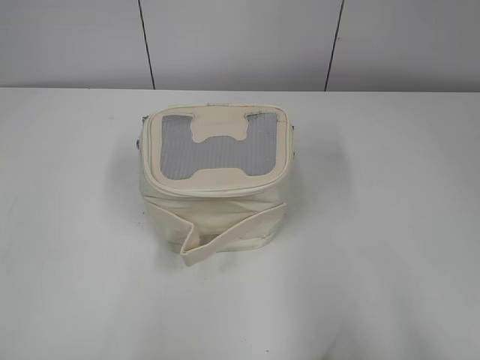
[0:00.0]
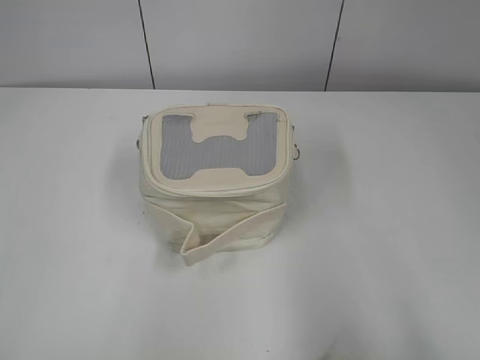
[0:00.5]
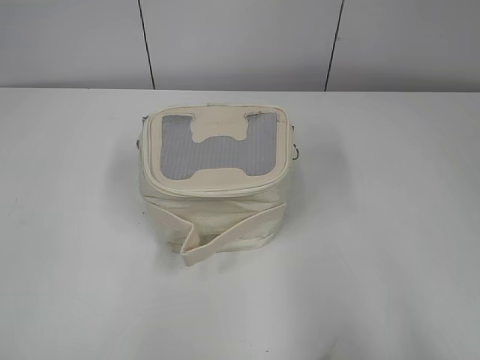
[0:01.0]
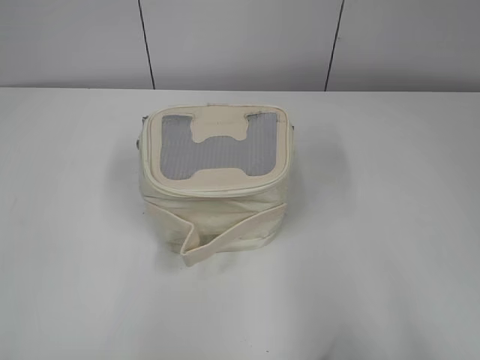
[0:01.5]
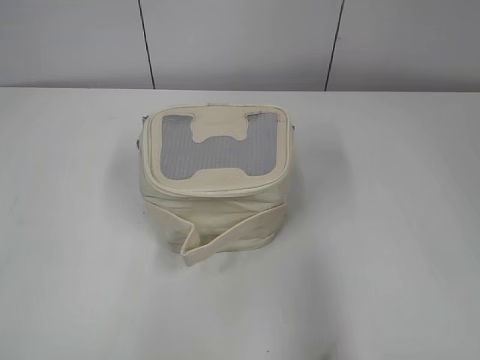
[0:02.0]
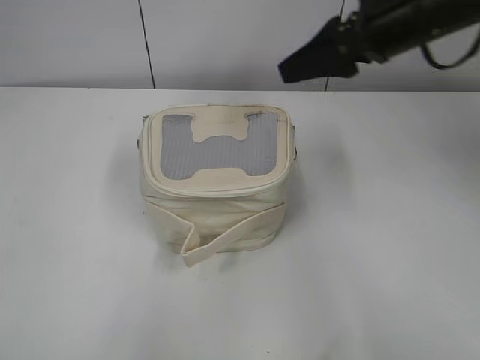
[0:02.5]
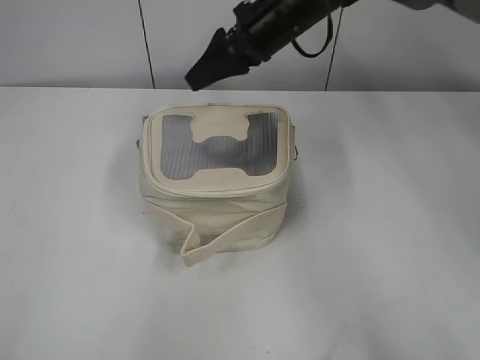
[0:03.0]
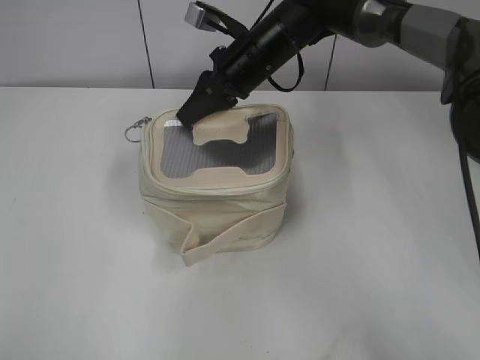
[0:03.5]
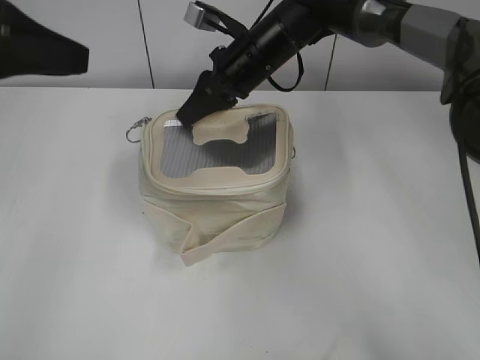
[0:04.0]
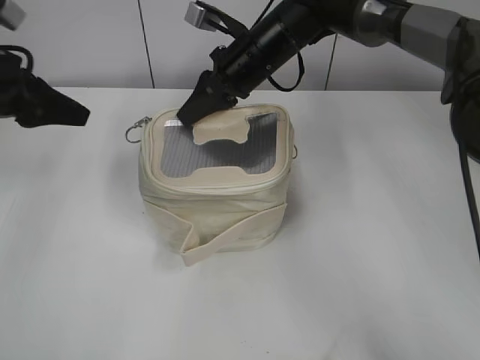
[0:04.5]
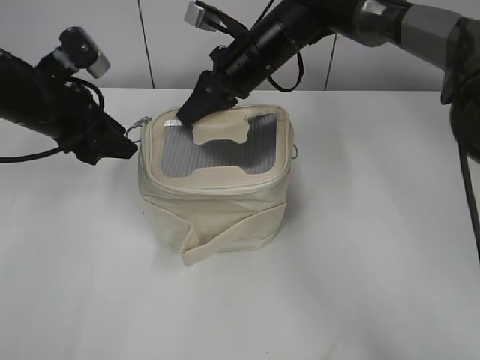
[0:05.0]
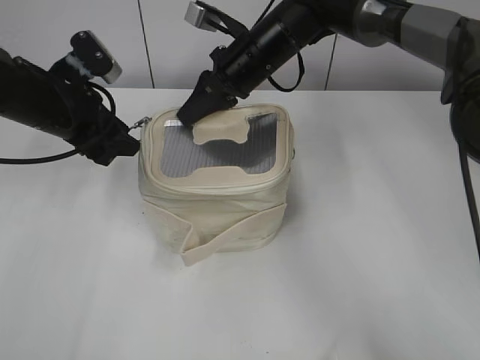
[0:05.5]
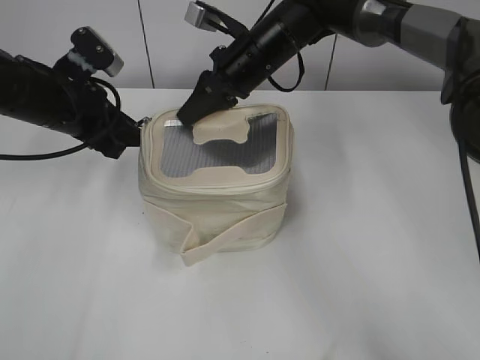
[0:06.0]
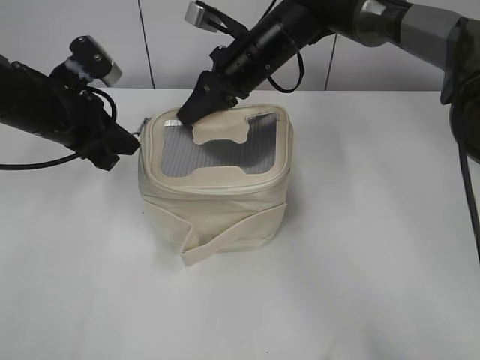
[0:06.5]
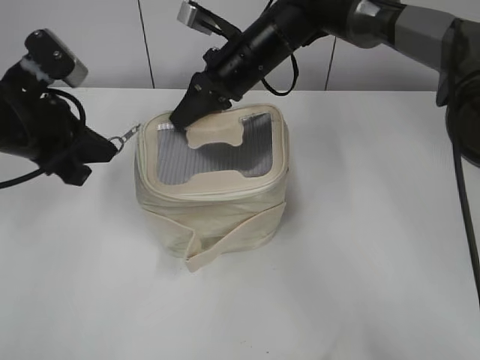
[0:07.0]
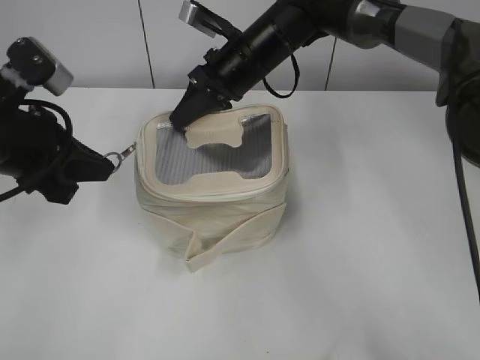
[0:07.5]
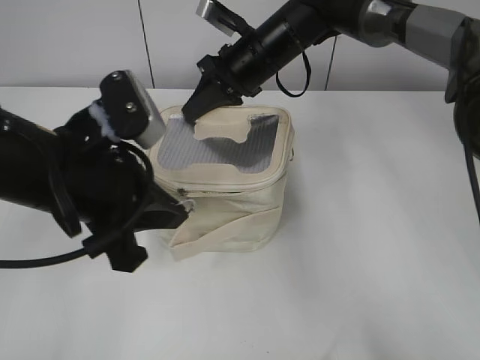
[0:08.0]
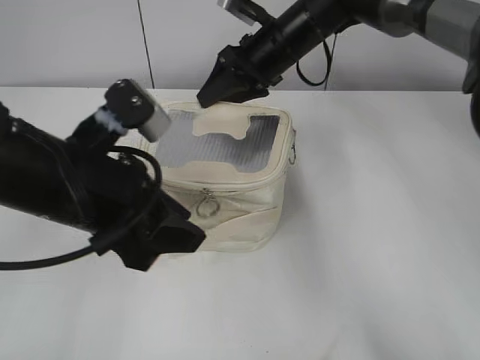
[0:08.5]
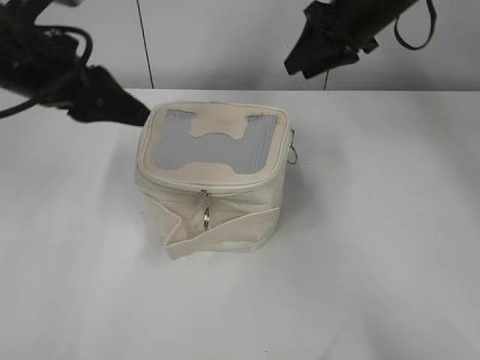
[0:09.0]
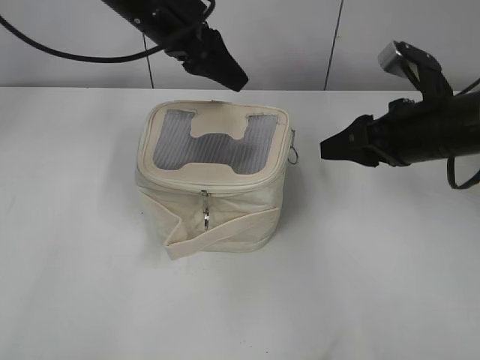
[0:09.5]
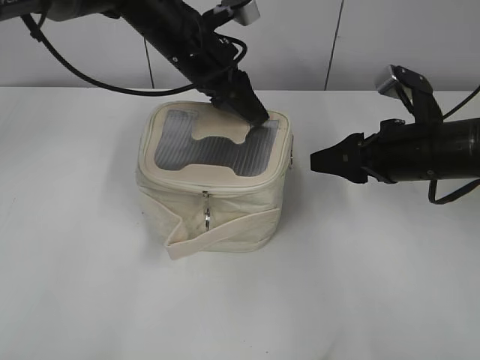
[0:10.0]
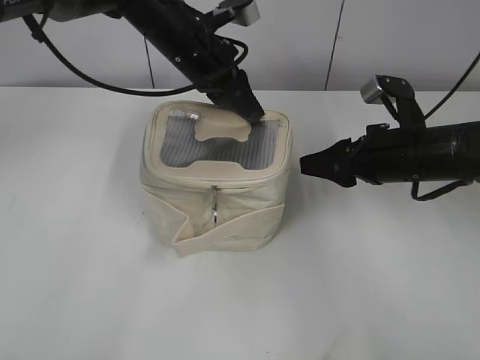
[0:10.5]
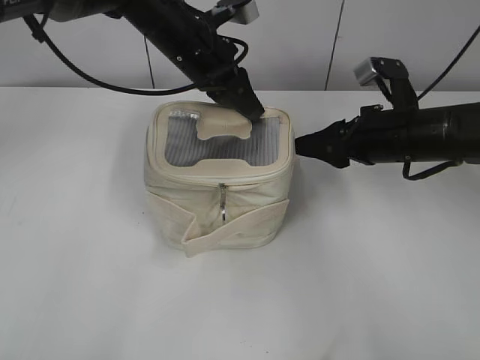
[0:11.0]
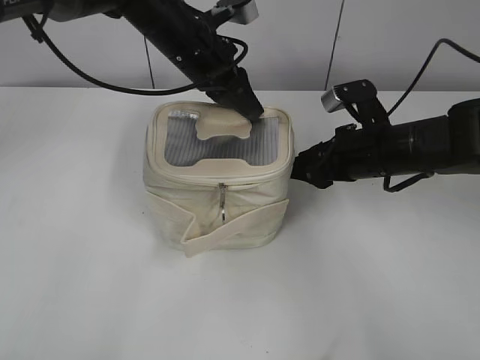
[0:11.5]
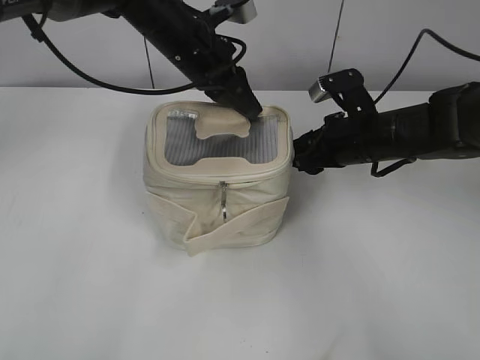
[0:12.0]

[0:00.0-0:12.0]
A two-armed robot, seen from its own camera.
Step, 0:00.0 to 0:08.0: Zip up the bag with your left hand.
0:02.0 to 0:04.0: The left gripper moves forward, about 25 cm. Meanwhile the right gripper goes approximately 40 cm forward and to the left, and closes.
0:04.0 to 0:06.0: The left gripper shifts roughly 20 cm downward and forward.
0:06.0 to 0:08.0: The left gripper goes approximately 15 cm backward and to the right, and closes.
0:08.0 to 0:10.0: The right gripper heads to the right and backward, covering roughly 25 cm, and opens up; the left gripper goes about 20 cm forward, and opens up.
0:10.0 to 0:12.0: The left gripper closes; the right gripper is displaced forward by about 5 cm.

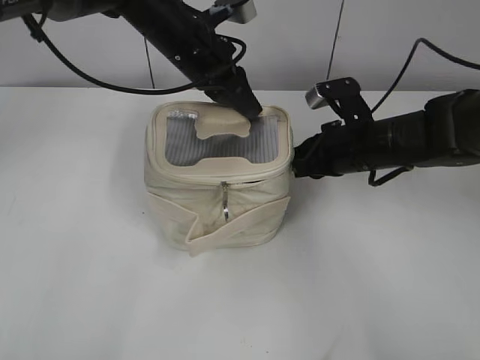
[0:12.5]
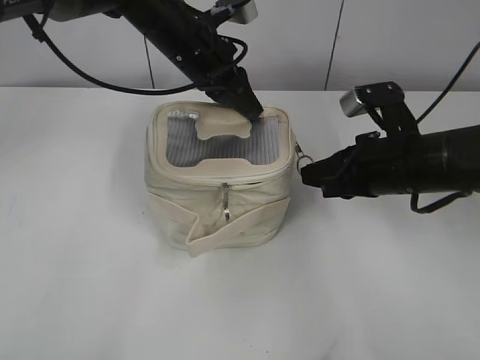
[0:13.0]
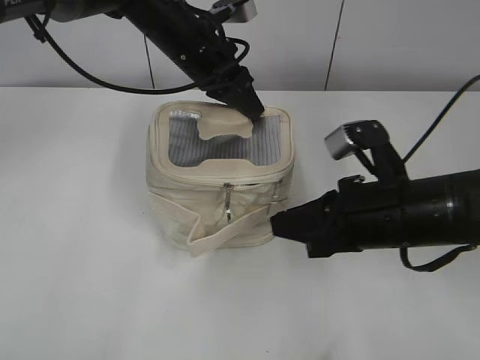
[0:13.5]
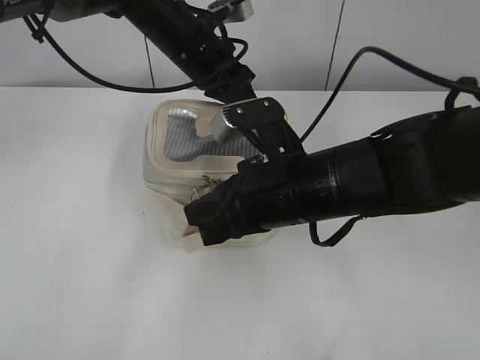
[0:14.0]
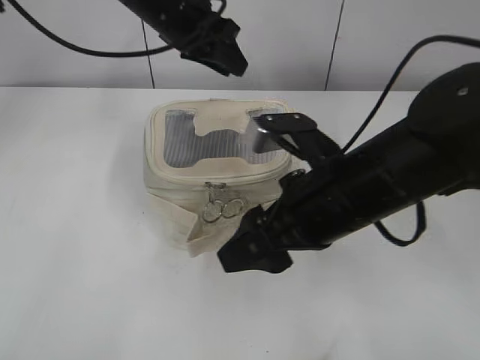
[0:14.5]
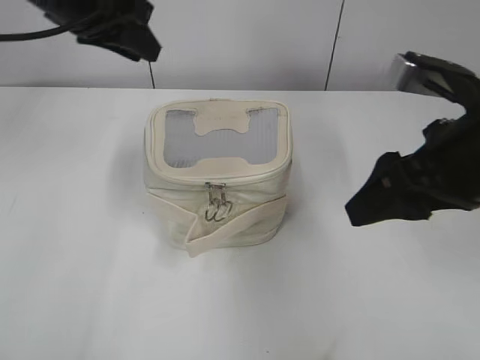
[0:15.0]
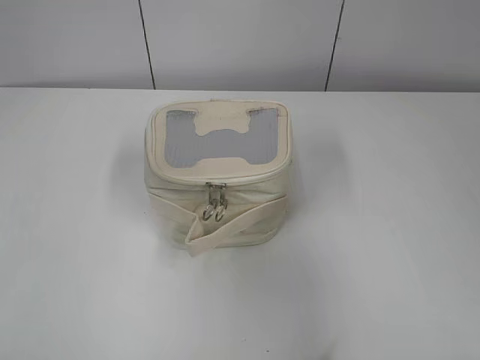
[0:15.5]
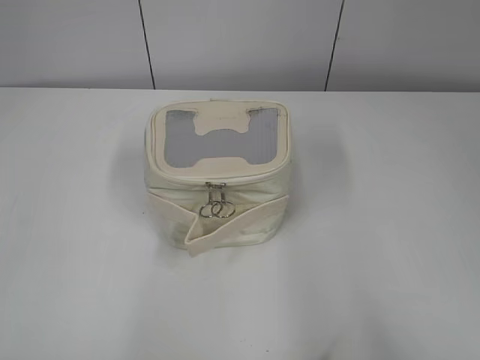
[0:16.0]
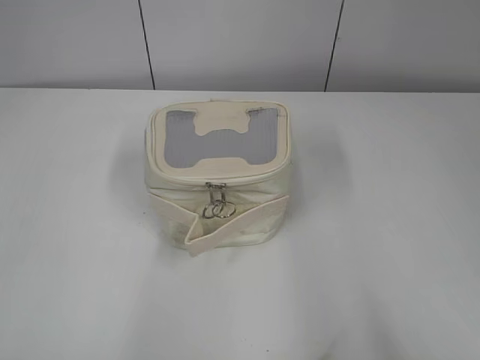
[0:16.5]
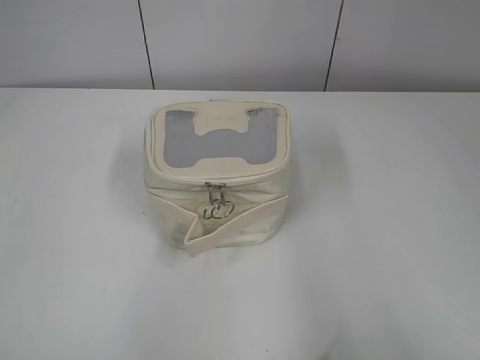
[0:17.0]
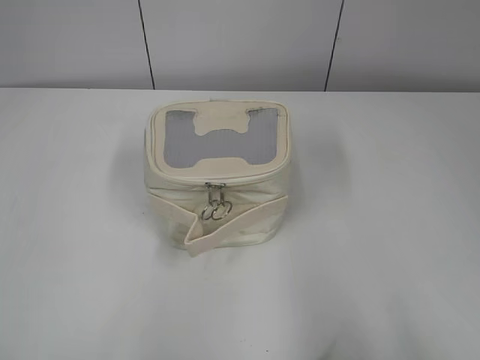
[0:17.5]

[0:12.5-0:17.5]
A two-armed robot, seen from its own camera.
0:12.5 to 0:15.0: The left gripper goes approximately 15 cm to the left, upward and backward, and opens up, while the right gripper goes about 20 cm upward and backward, and opens up.
0:15.0 to 0:17.5: The right gripper shifts about 25 cm backward and to the right. Meanwhile the left gripper travels backward and to the left by approximately 40 cm.

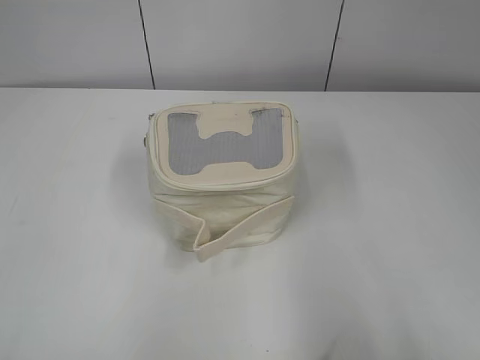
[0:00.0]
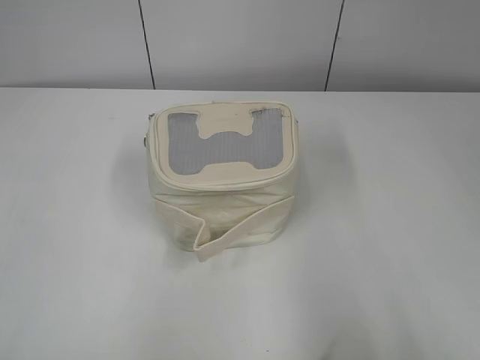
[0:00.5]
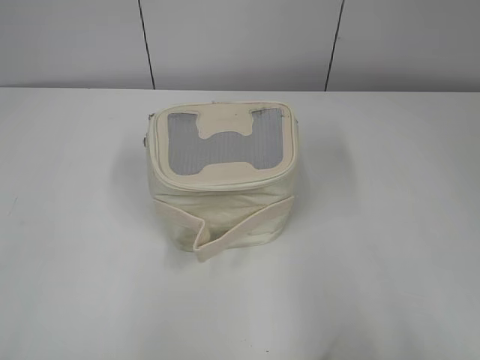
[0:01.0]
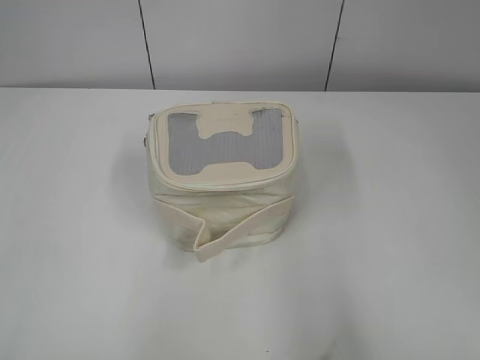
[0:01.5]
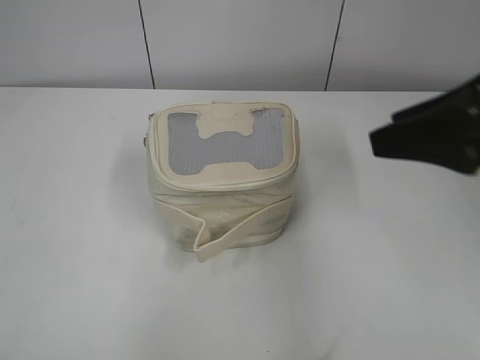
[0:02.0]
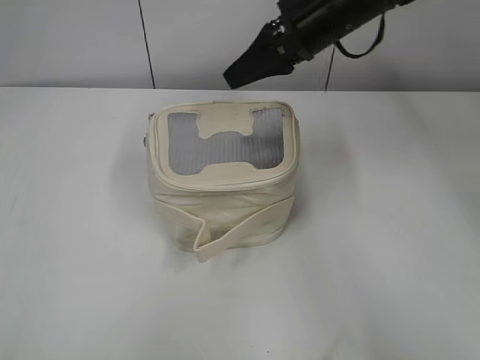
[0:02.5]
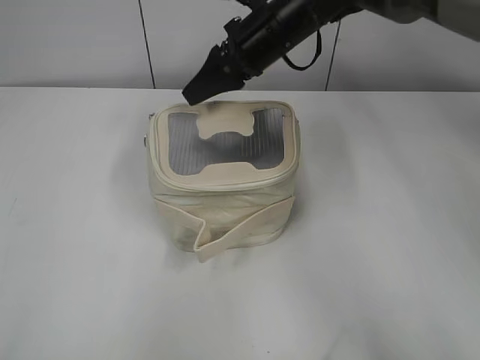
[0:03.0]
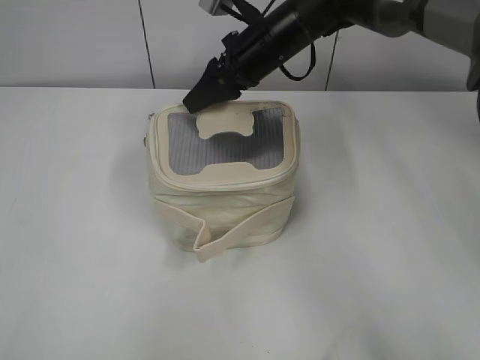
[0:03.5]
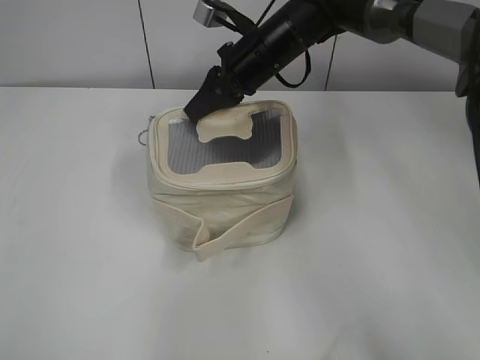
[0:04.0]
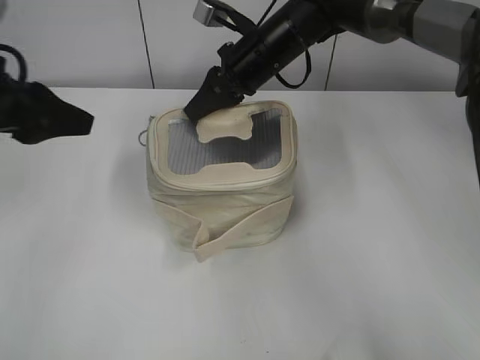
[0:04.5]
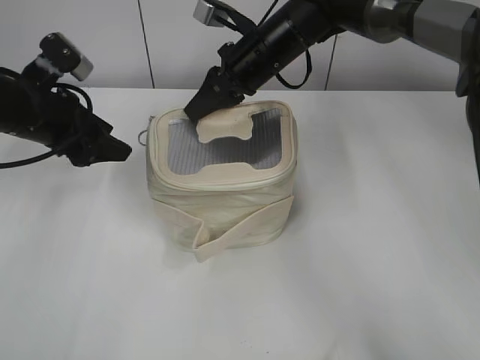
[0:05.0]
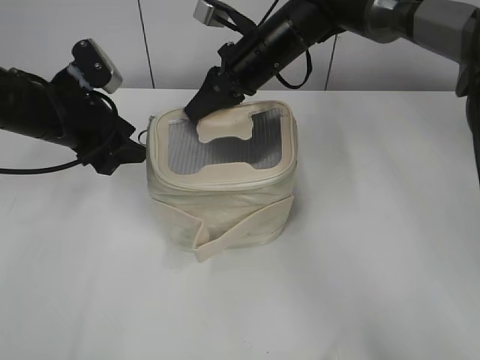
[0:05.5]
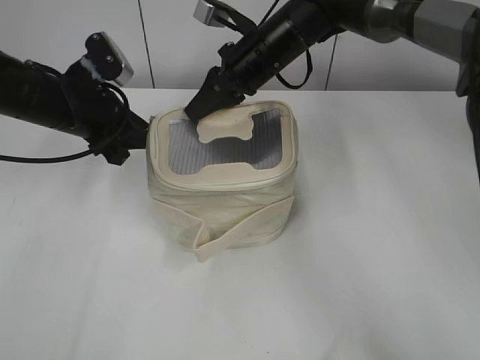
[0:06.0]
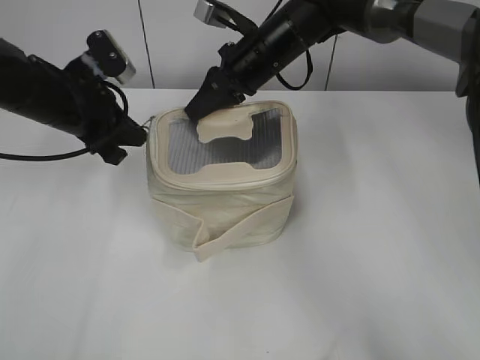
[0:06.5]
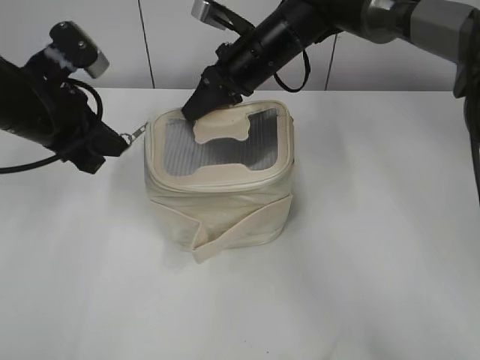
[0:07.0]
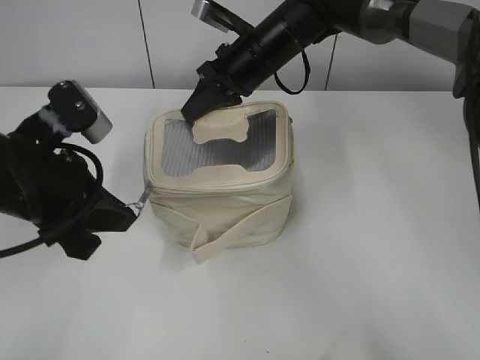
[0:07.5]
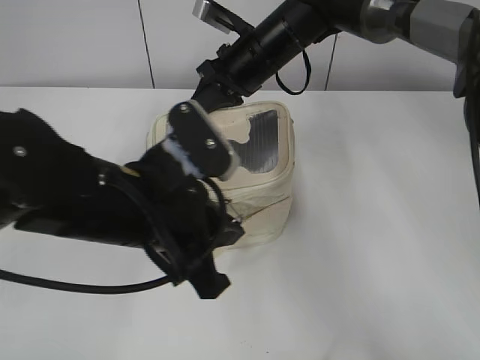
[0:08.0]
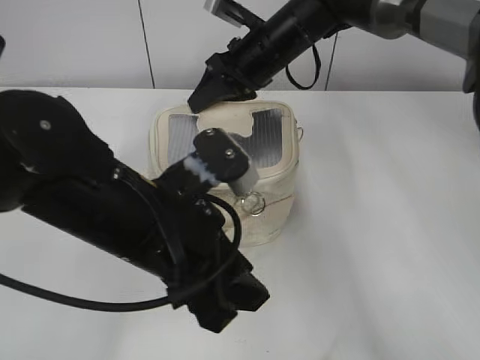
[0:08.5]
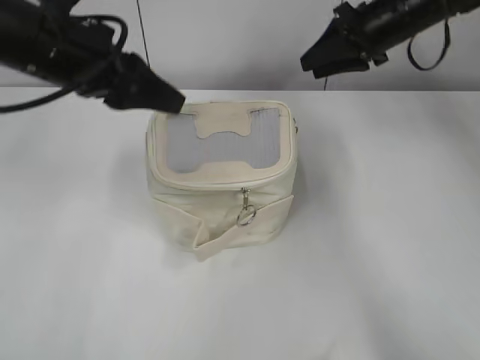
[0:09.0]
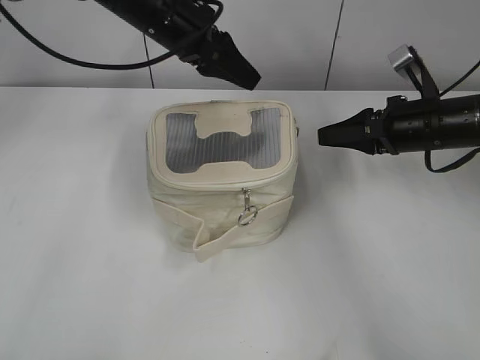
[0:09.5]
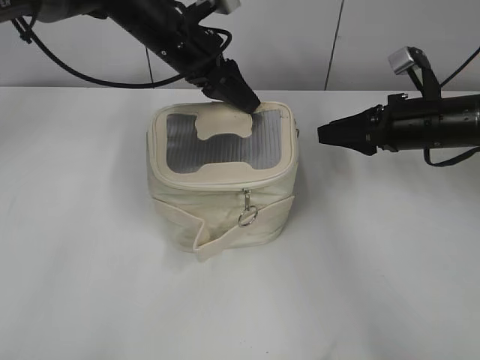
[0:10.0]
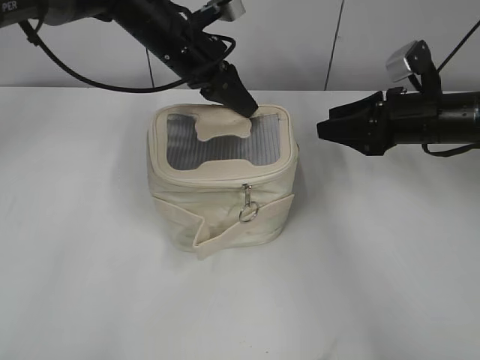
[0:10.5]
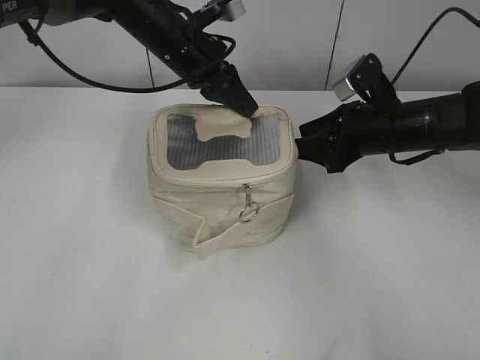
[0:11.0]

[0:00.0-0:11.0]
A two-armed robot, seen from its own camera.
Step, 0:00.0 to 0:08.0: Zip up the bag with your left hand.
0:02.0 to 0:03.5: The right gripper shifts about 35 cm forward and to the left.
0:03.5 to 0:05.5: The right gripper closes up; the left gripper is displaced forward by approximately 35 cm, and opens.
0:05.5 to 0:07.5: The left gripper goes approximately 10 cm backward, and closes its fingers.
0:07.5 to 0:09.0: The left gripper moves upward, about 5 cm, goes to the right and returns, about 10 cm each way, and opens. Meanwhile the right gripper is displaced to the right by roughly 15 cm, and opens its fingers.
0:09.0 to 0:11.0: The left gripper goes some 20 cm forward and to the right, and closes up; the right gripper moves backward and downward, roughly 15 cm.
